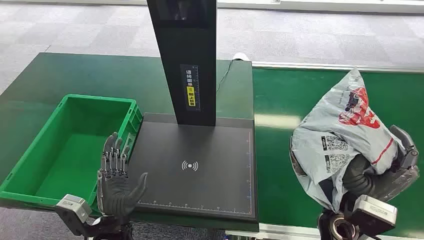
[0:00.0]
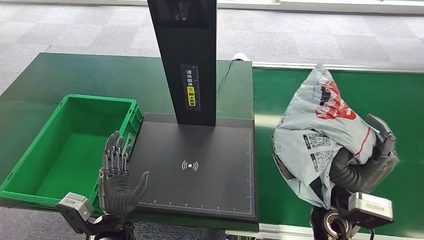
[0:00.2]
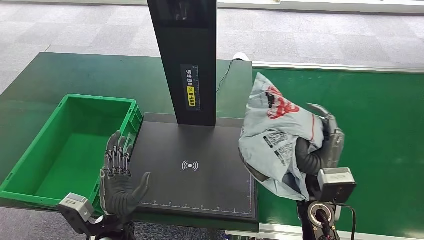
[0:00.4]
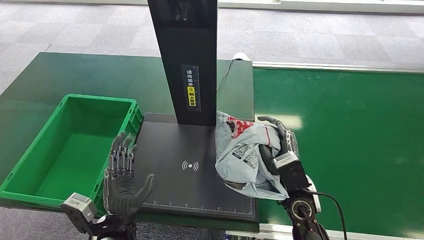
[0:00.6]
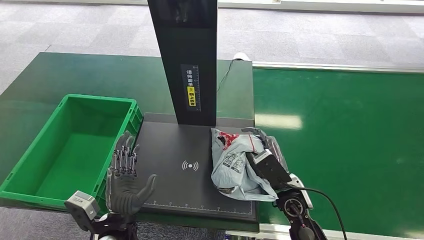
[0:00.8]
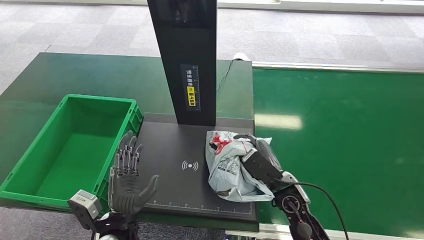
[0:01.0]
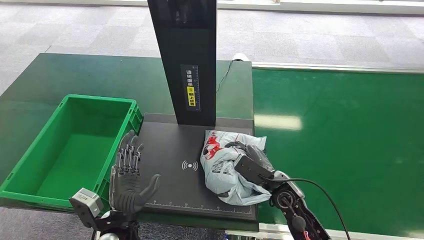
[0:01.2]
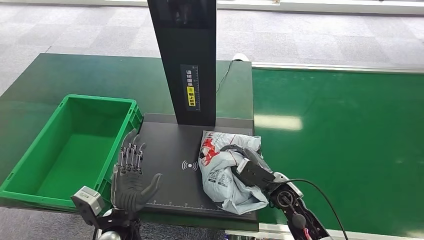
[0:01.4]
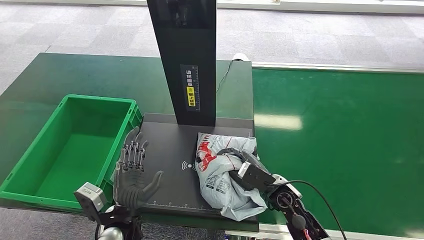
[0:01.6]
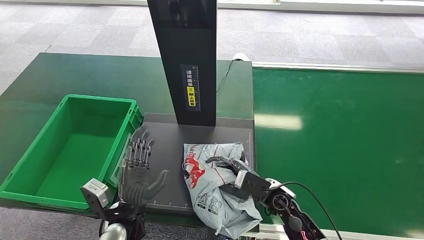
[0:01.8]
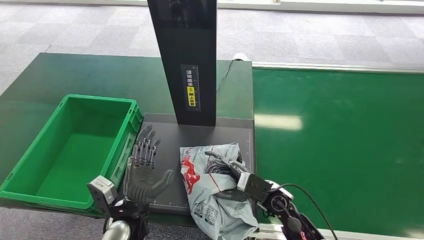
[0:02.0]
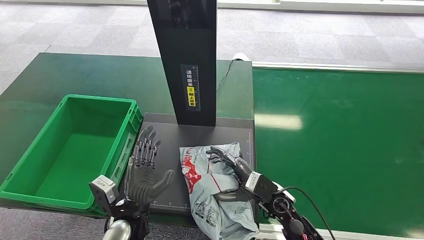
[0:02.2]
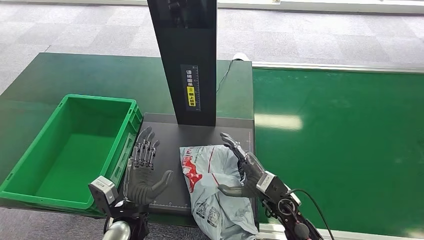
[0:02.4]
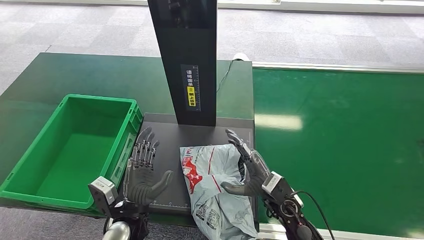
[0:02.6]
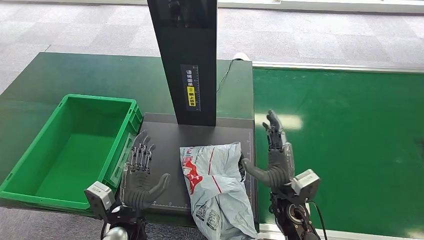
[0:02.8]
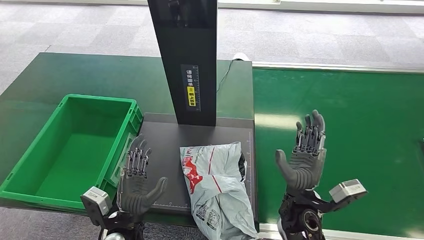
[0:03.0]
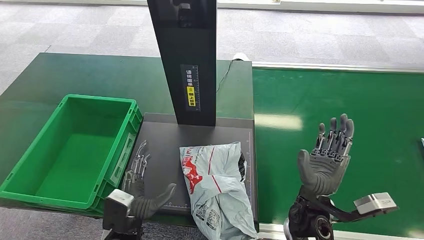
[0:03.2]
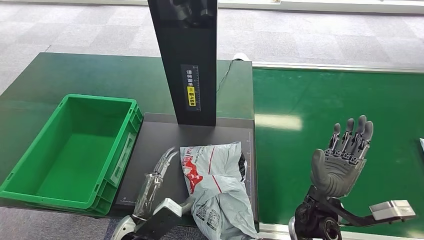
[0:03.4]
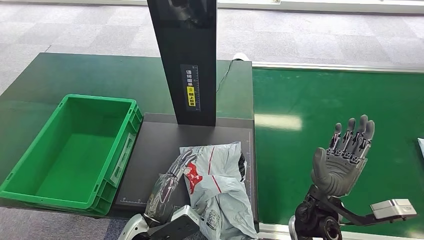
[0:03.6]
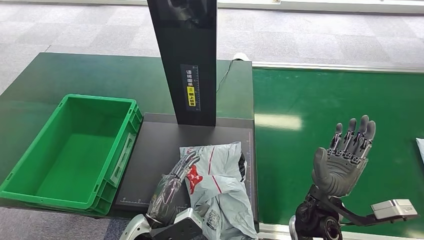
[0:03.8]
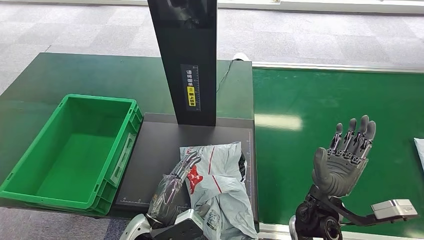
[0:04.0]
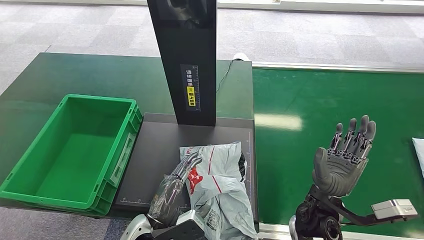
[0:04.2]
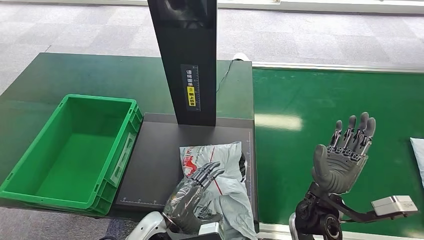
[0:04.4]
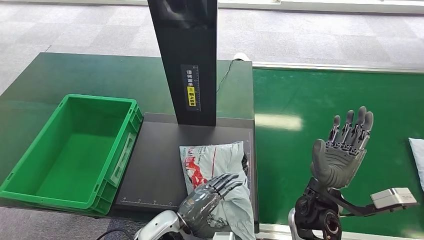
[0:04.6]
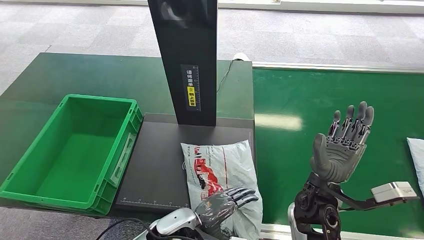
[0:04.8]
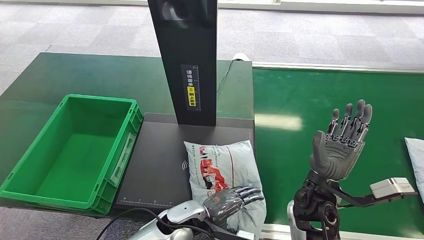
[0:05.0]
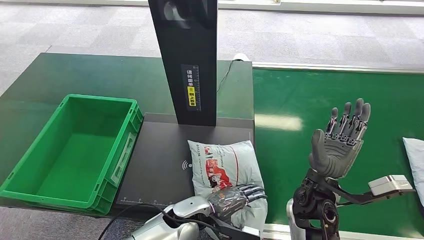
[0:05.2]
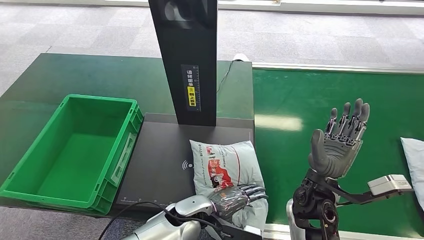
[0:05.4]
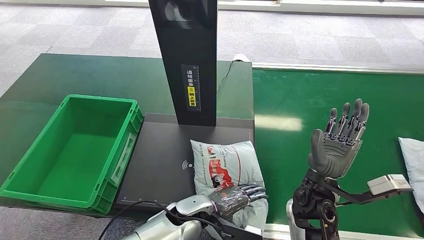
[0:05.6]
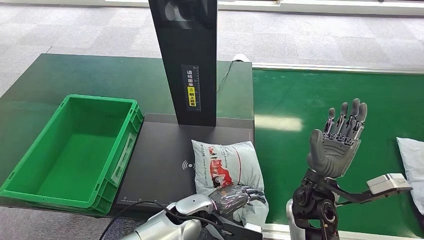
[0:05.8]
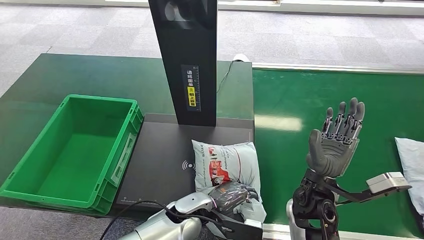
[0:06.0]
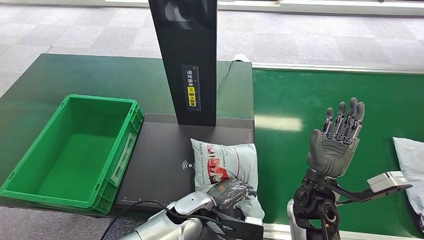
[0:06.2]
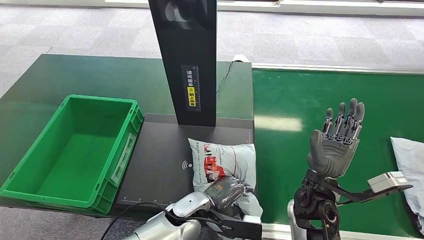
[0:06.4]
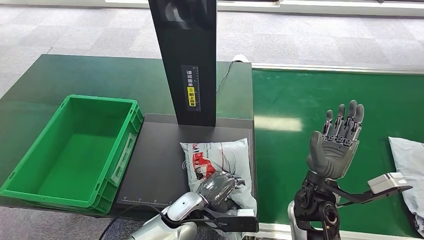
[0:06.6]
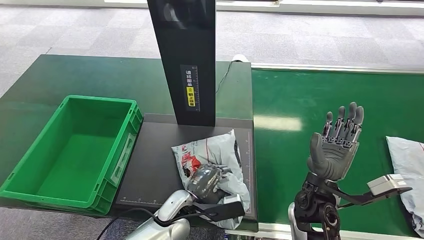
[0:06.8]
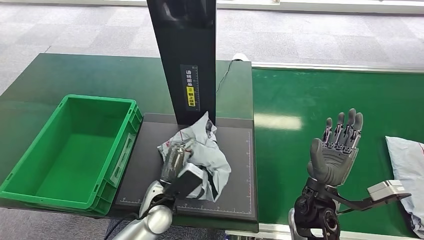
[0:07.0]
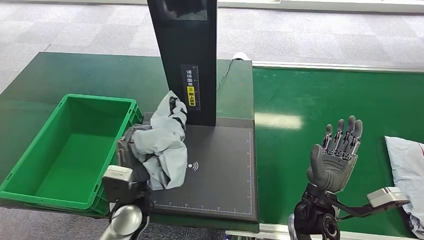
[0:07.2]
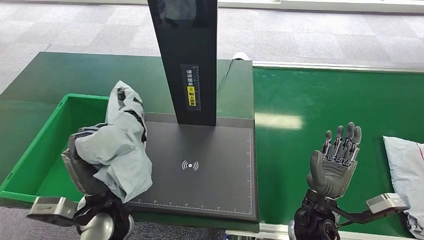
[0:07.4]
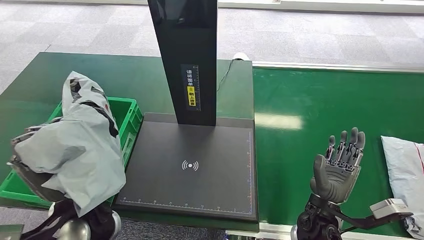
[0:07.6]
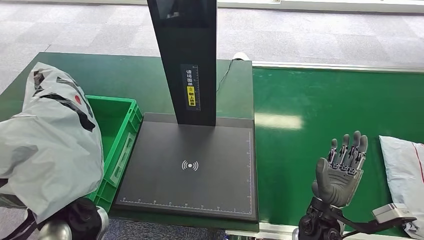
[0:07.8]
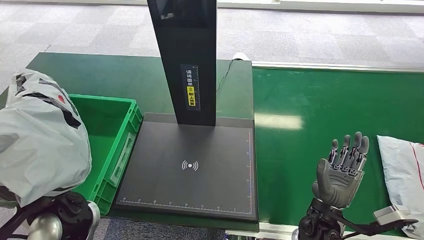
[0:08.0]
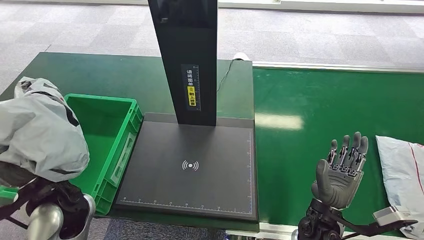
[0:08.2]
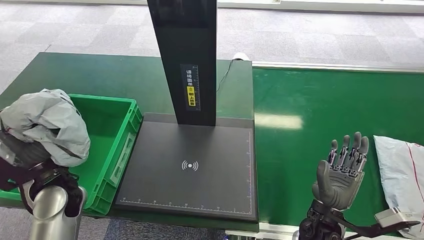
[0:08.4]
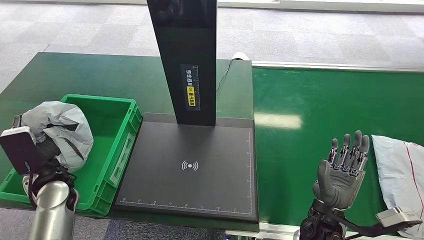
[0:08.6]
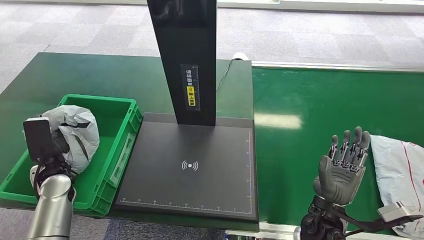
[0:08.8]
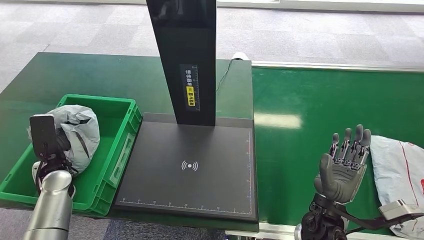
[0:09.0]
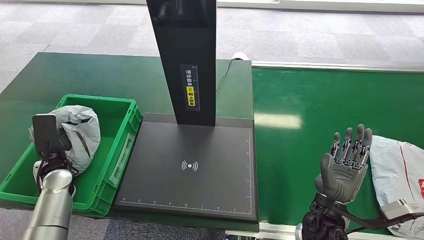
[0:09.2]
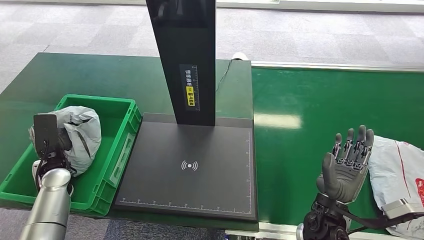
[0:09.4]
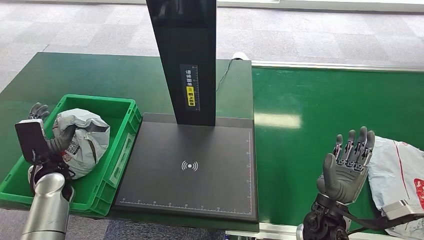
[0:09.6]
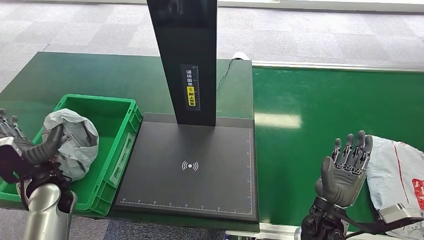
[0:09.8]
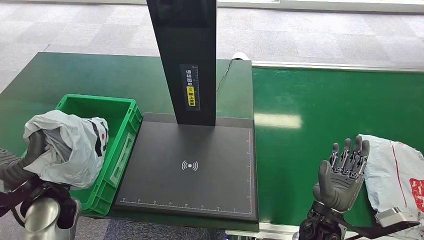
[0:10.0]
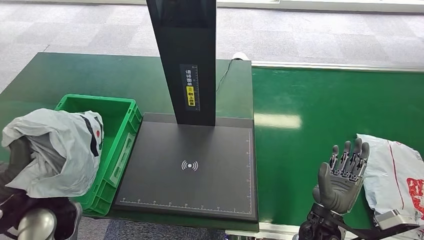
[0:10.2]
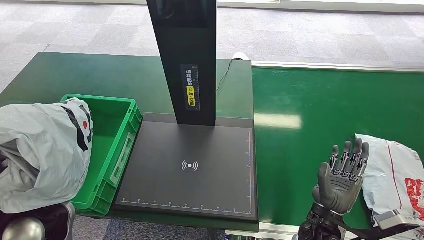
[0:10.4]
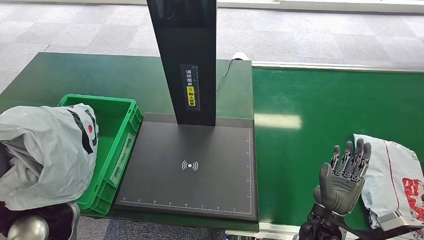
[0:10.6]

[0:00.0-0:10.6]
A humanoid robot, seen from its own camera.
Step, 0:02.2 to 0:02.4: Place the package onto the inbound machine.
0:01.6 to 0:03.0: The right hand travels backward and upward by roughly 10 cm.
0:03.0 to 0:04.6: The left hand travels to the right by approximately 10 cm.
0:04.6 to 0:06.0: The left hand moves forward and to the right, roughly 10 cm.
0:07.6 to 0:09.0: The left hand goes roughly 25 cm to the left, forward and downward.
0:09.0 to 0:10.6: The left hand heads backward, upward and to the right, covering some 20 cm.

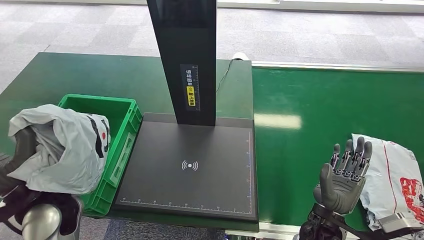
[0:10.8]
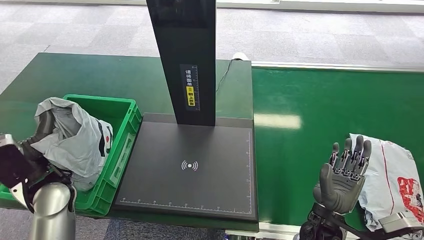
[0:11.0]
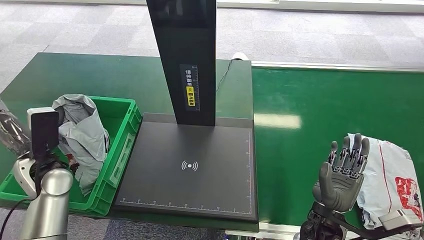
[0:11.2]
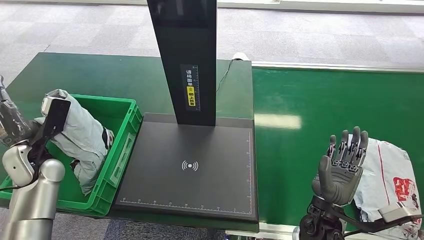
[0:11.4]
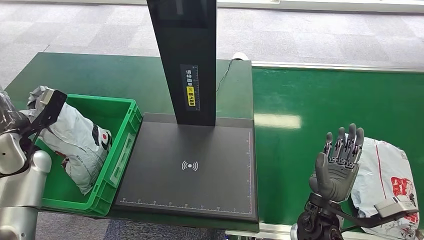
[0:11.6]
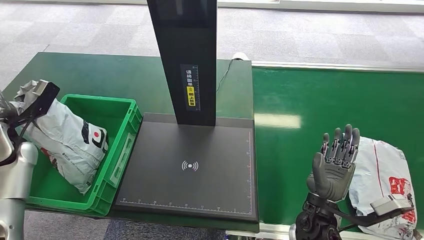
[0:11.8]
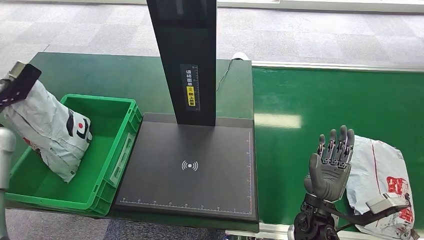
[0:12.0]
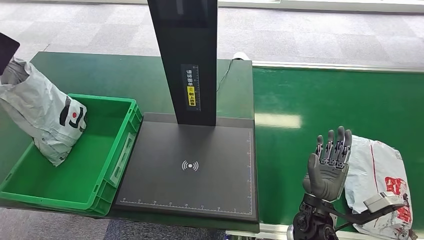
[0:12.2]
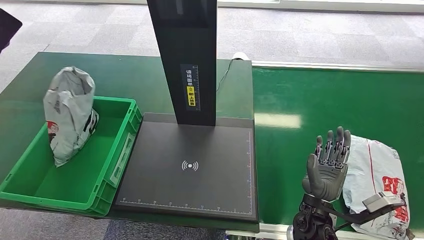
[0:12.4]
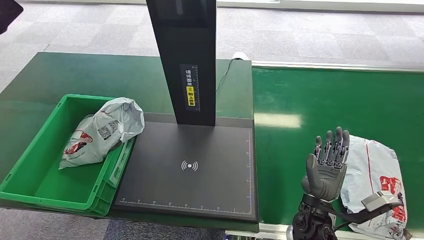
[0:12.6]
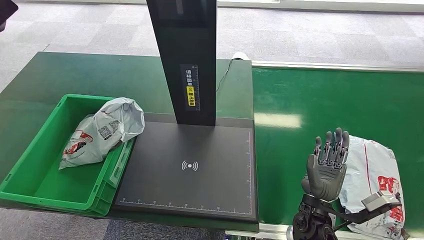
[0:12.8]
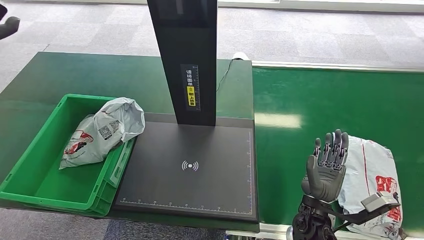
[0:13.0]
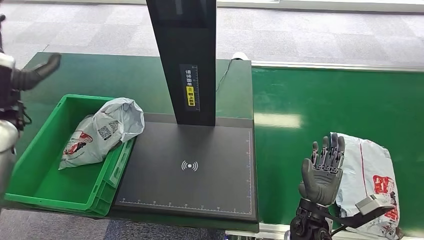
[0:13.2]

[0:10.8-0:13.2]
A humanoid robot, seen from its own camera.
0:10.8 to 0:12.0: The left hand is displaced to the left and forward by roughly 25 cm.
0:12.0 to 0:13.2: The left hand travels to the right by roughly 10 cm, and reaches approximately 15 cm upward, then returns.

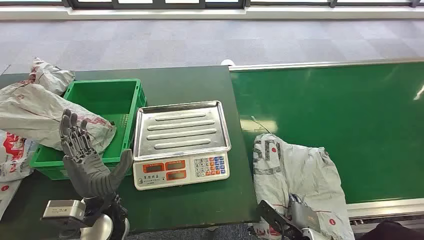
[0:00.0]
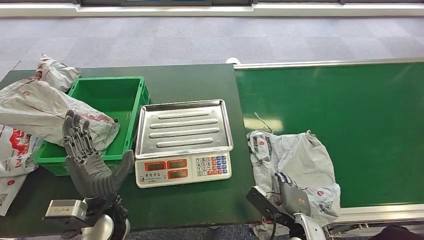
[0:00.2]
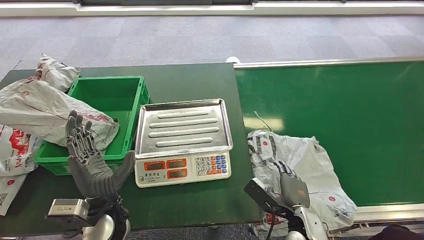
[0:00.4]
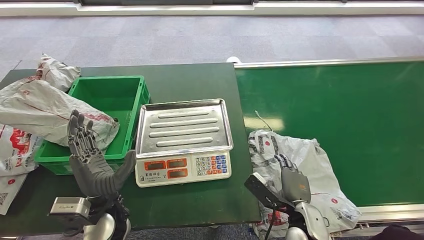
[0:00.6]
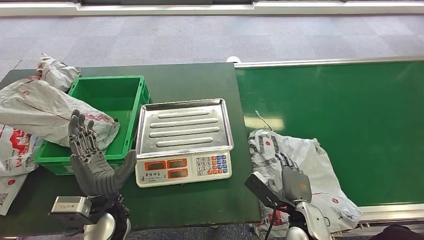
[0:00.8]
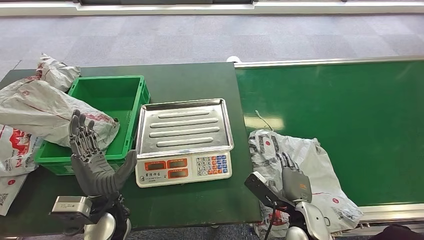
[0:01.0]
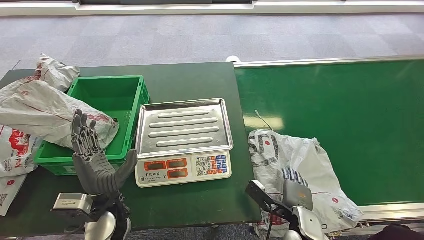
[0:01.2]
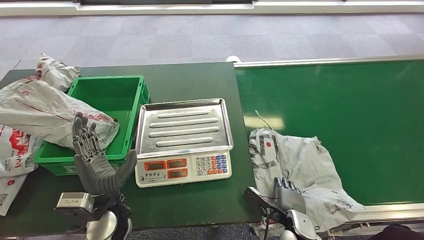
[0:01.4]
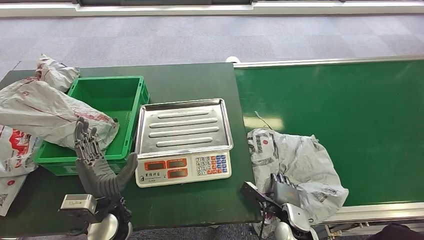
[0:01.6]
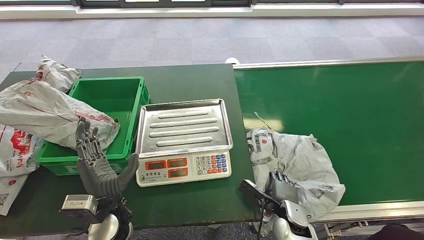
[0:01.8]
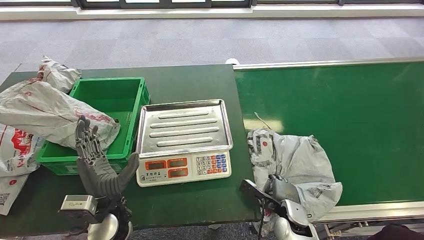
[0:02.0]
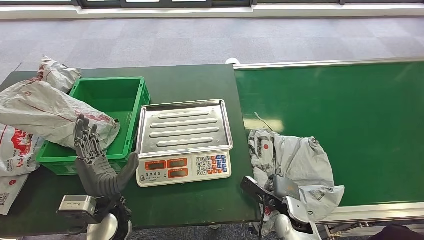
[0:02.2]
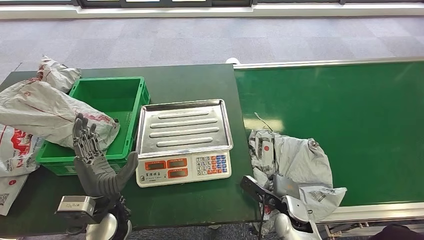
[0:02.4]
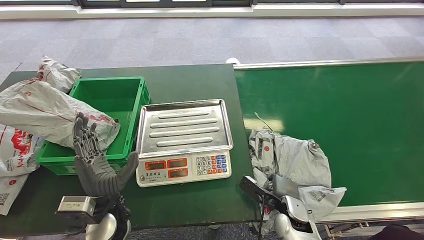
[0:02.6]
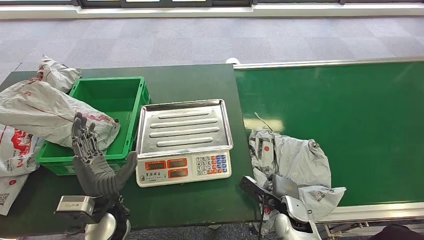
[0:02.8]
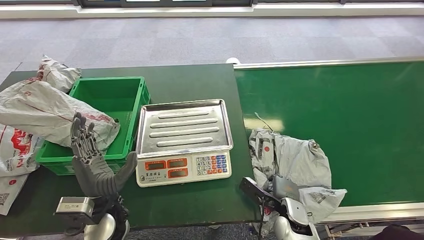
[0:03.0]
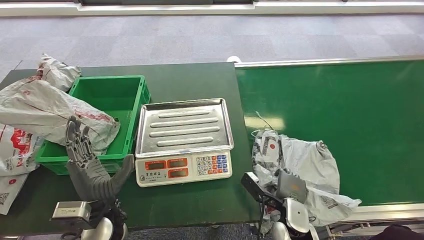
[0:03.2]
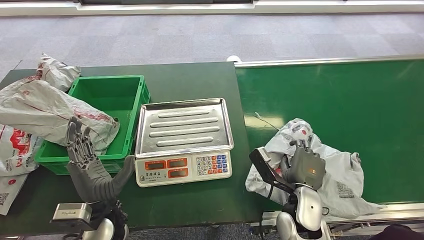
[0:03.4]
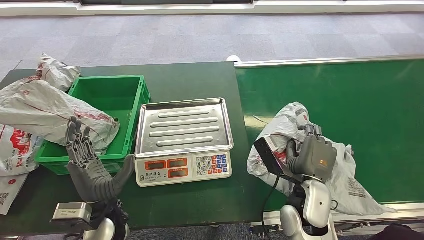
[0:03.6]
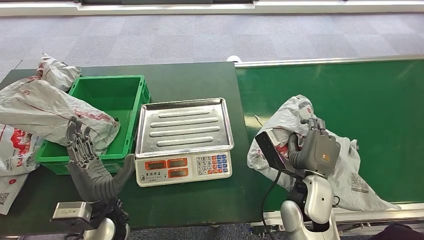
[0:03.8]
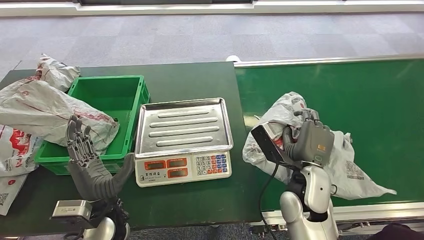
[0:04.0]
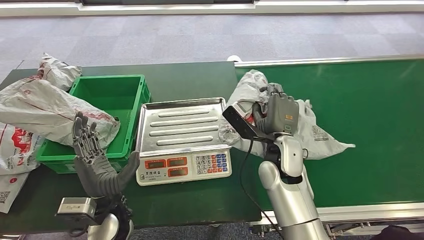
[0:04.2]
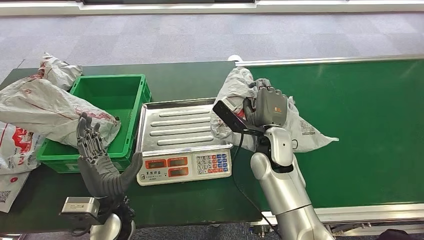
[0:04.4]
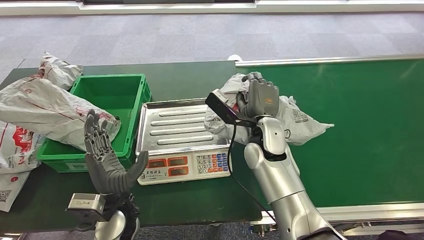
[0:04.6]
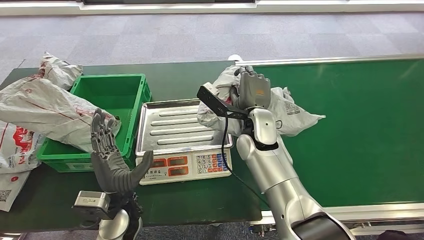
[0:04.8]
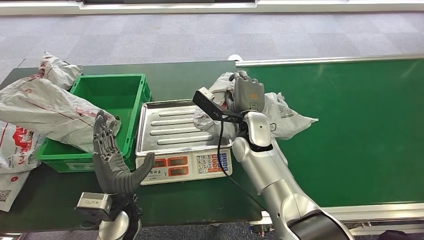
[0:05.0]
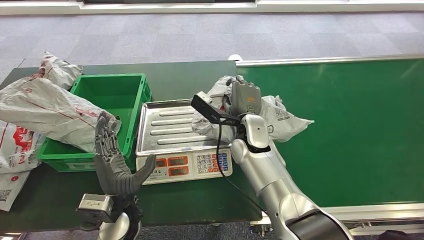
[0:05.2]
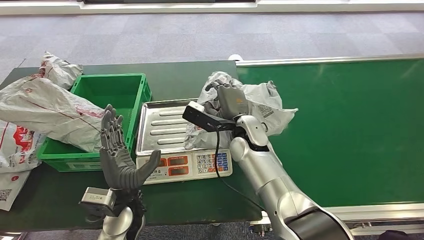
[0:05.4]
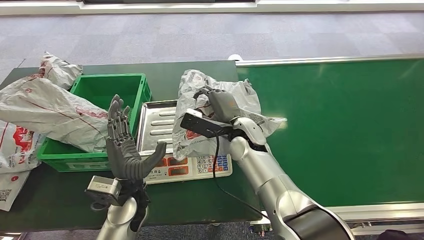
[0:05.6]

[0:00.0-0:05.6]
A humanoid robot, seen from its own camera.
Step, 0:00.0 to 0:04.0: Pick up the package from the conveyor belt.
0:01.4 to 0:02.8: There are only small adjustments of the hands.
